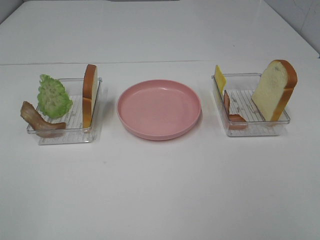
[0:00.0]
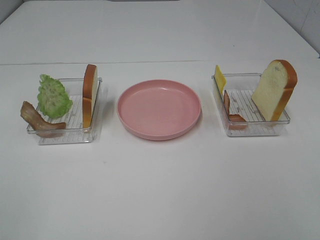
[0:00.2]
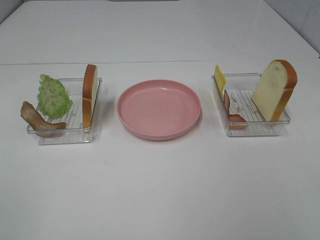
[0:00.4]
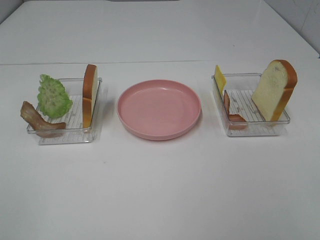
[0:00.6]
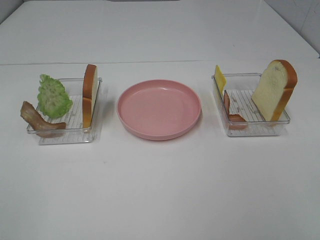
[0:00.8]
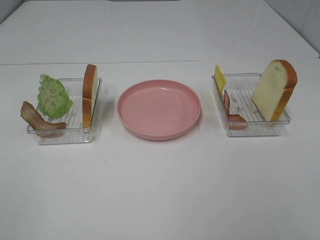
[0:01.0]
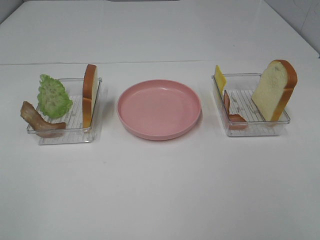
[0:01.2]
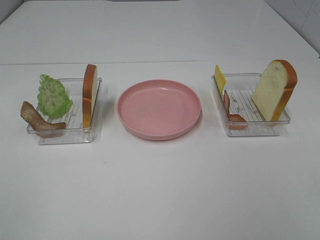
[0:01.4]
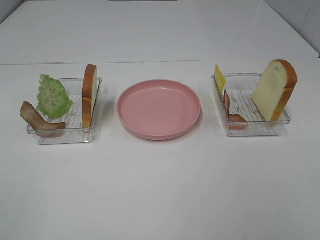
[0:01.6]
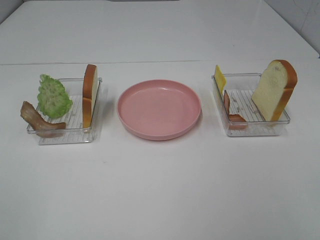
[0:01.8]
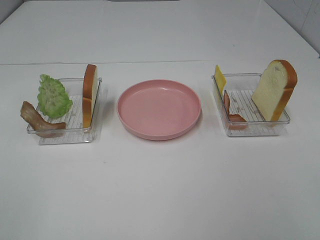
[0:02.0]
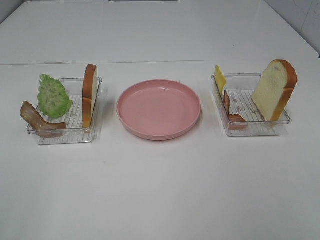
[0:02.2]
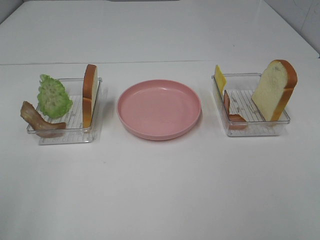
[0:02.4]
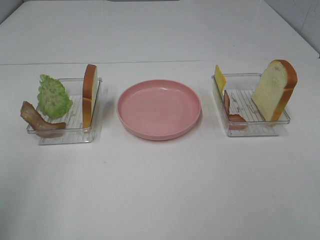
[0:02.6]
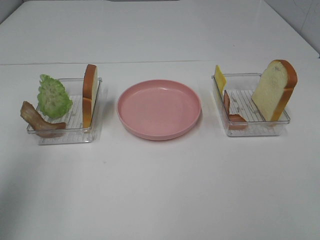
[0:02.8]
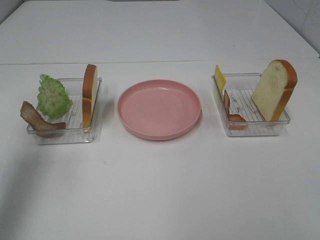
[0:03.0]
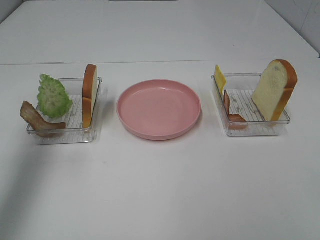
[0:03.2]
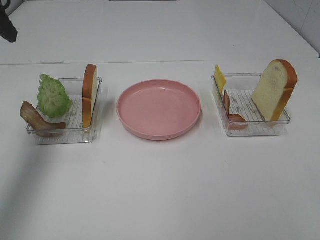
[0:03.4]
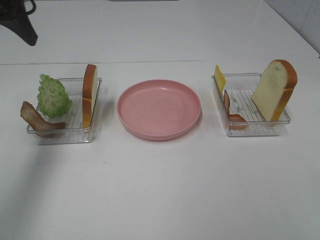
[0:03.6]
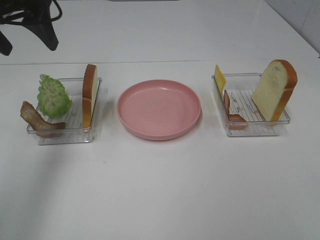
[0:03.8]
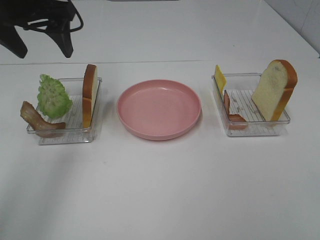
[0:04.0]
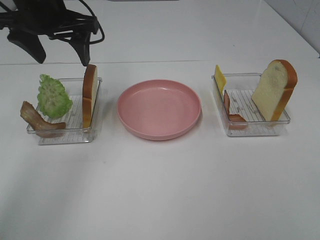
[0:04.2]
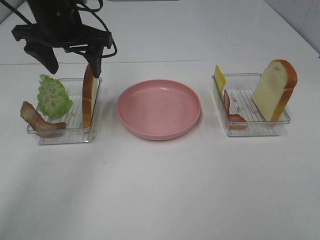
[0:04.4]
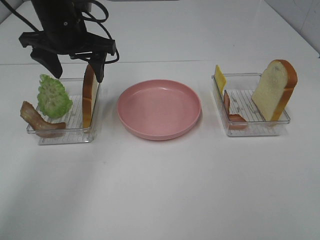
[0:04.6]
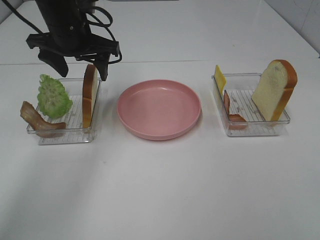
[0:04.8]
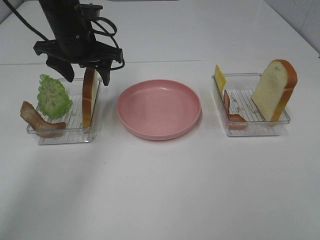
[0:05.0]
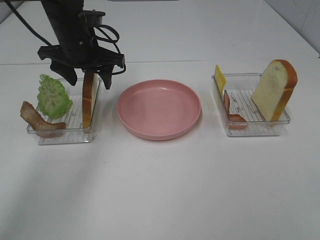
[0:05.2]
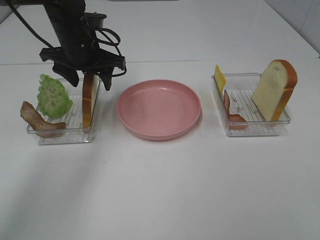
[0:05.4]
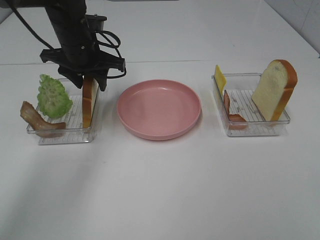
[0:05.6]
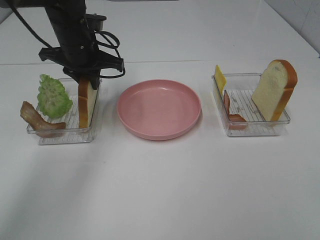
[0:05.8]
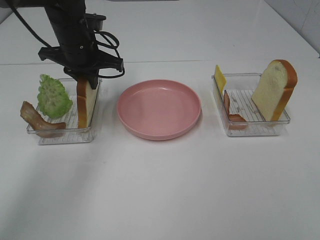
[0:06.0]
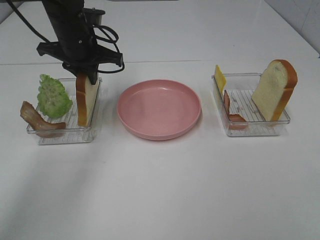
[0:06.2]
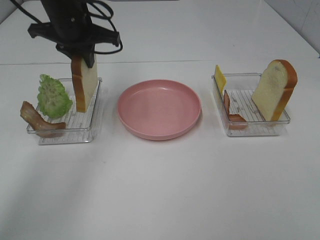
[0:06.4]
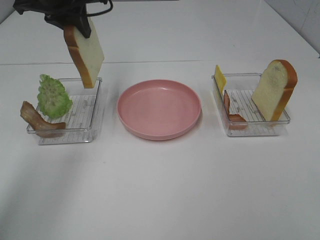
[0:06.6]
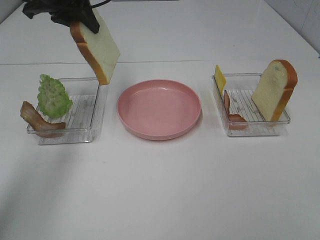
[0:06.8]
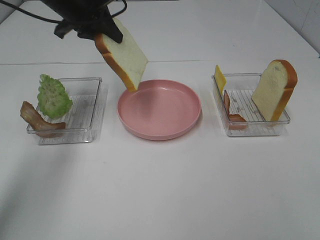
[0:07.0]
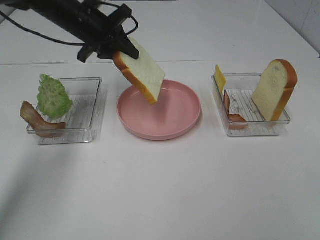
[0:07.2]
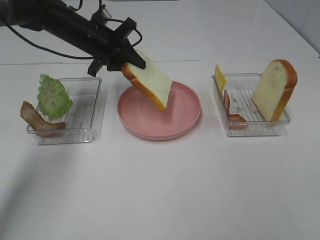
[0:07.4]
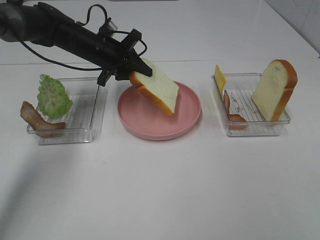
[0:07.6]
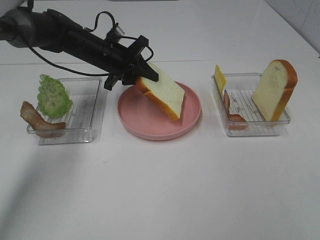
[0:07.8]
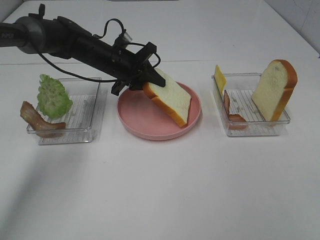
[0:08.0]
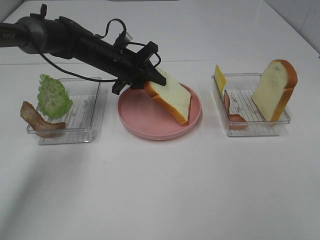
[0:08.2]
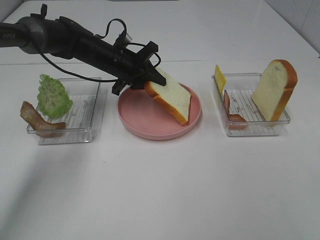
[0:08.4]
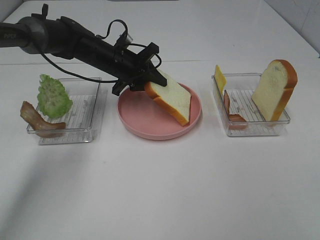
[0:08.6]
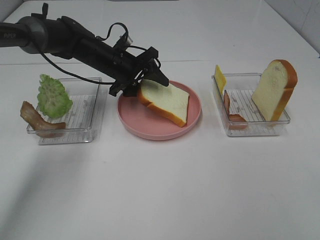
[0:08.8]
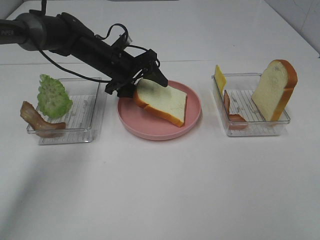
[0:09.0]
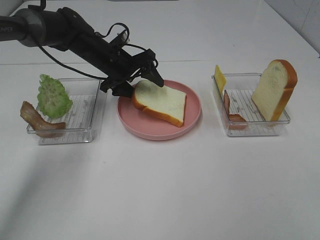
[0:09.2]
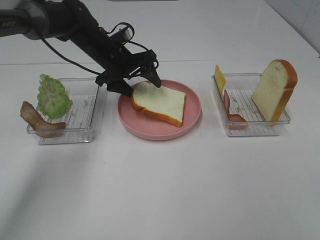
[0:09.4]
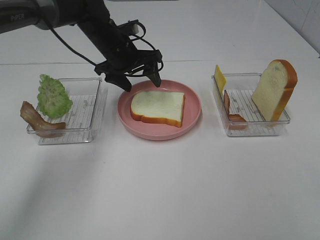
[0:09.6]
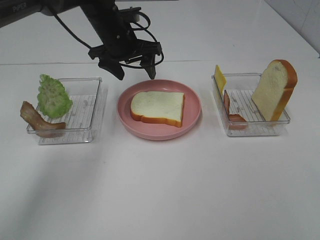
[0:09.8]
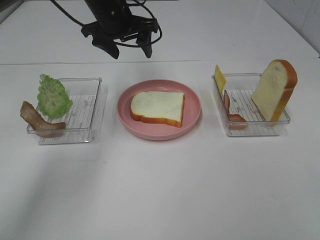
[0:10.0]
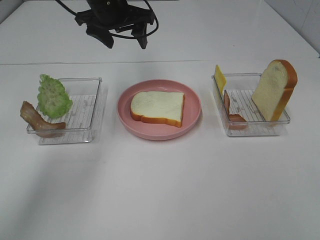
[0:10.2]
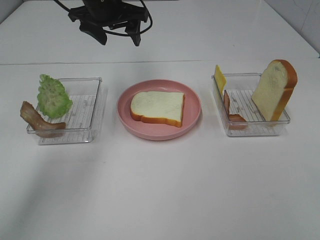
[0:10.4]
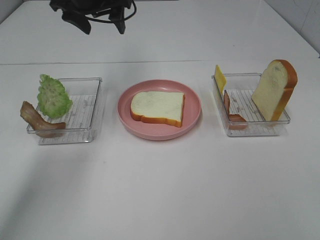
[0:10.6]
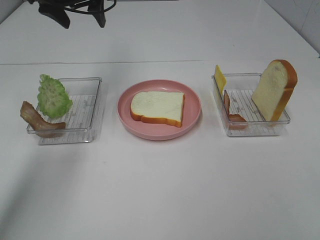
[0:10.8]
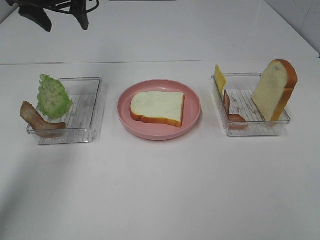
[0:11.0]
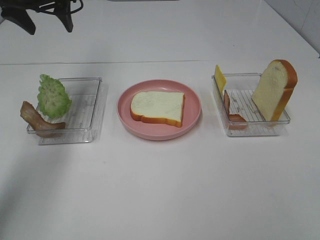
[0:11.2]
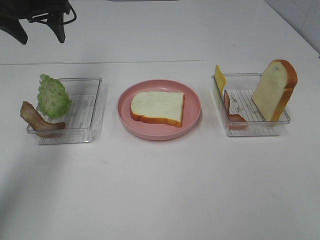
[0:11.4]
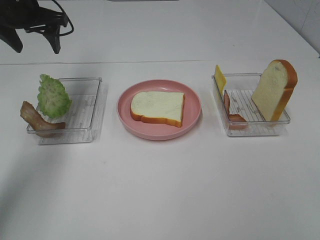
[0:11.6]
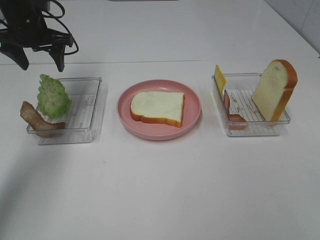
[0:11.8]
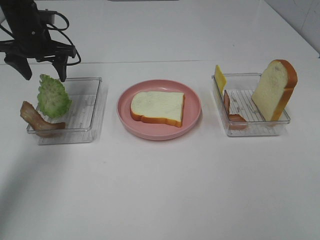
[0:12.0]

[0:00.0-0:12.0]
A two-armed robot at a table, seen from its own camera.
Task of the whole recording: Make sandwiches.
Step, 0:00.0 to 0:05.8: Left hand:grab the bread slice.
Step, 0:06.0 to 0:09.8: Left hand:place the bread slice on the plate.
0:00.0 to 0:01.6: Both grippers stay put.
0:01.6 to 0:03.0: The left gripper travels forward by some 25 cm.
0:03.0 to 0:04.4: The left gripper shifts about 25 cm forward, to the right and downward.
0:04.4 to 0:06.0: The left gripper moves downward, some 5 cm, and closes its fingers.
0:06.0 to 0:07.6: The left gripper moves approximately 10 cm upward and comes back.
0:07.6 to 0:09.0: The left gripper opens.
0:09.0 to 0:10.4: The left gripper is displaced upward by some 15 cm.
0:10.4 to 0:12.0: The left gripper moves to the left and downward, about 15 cm.

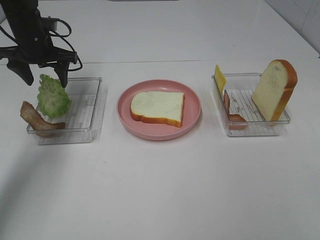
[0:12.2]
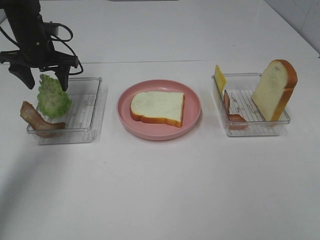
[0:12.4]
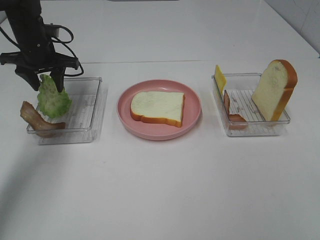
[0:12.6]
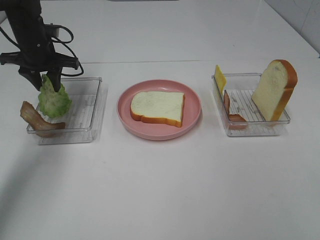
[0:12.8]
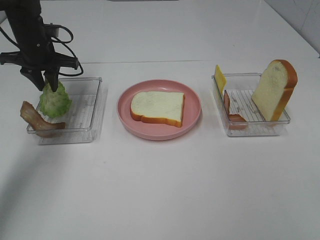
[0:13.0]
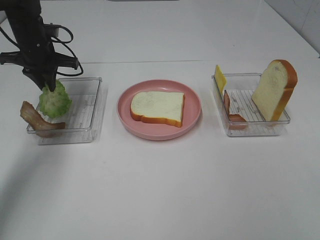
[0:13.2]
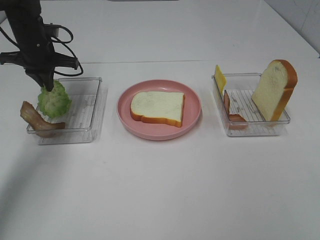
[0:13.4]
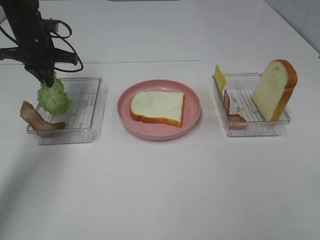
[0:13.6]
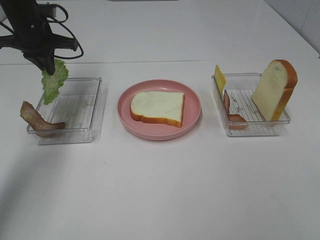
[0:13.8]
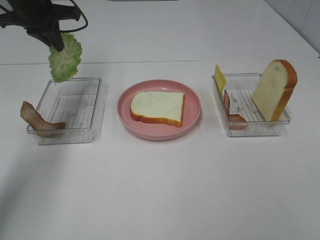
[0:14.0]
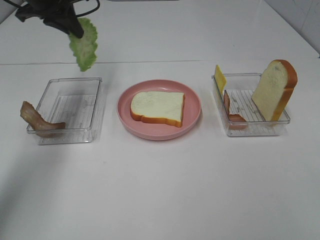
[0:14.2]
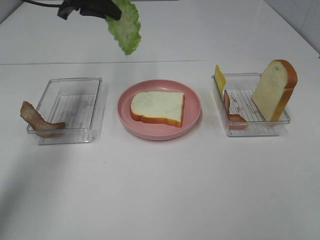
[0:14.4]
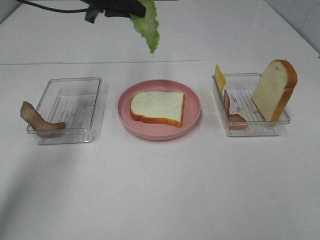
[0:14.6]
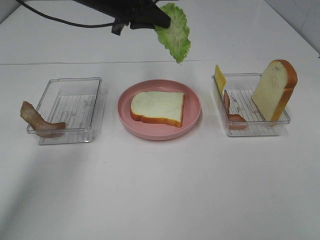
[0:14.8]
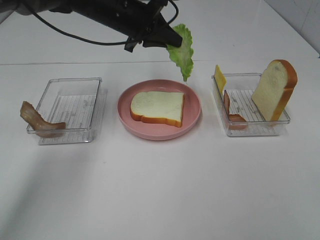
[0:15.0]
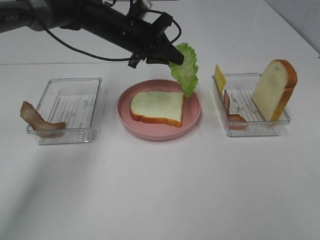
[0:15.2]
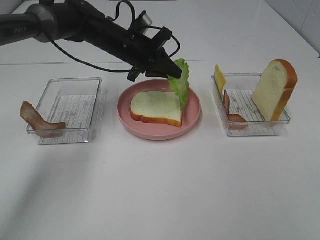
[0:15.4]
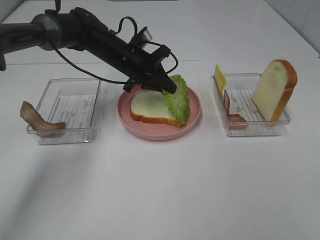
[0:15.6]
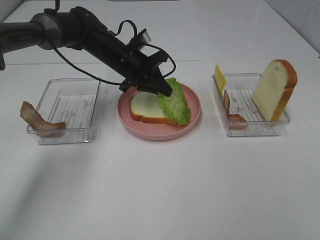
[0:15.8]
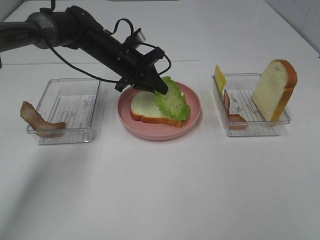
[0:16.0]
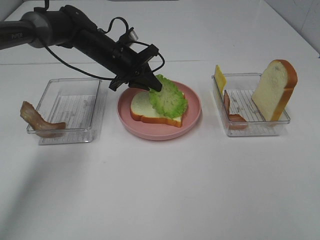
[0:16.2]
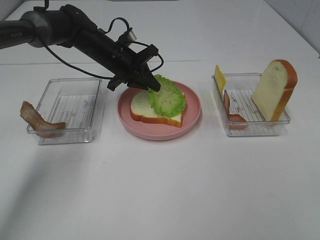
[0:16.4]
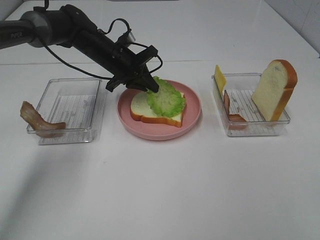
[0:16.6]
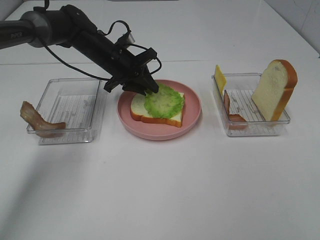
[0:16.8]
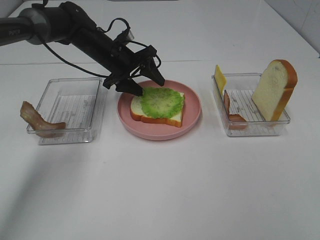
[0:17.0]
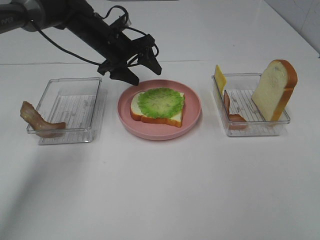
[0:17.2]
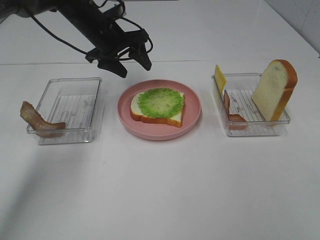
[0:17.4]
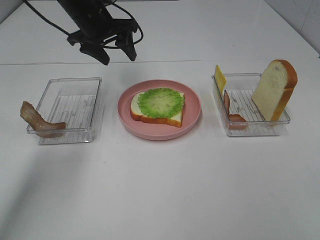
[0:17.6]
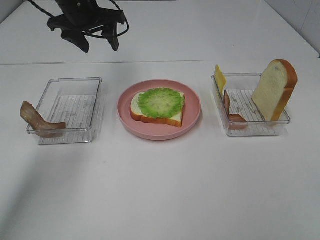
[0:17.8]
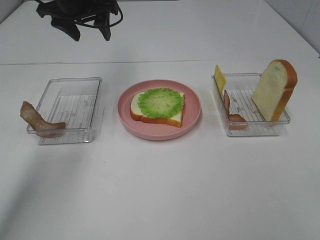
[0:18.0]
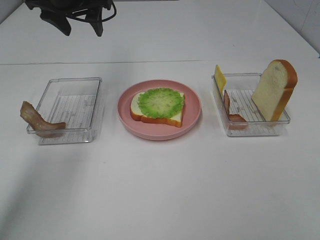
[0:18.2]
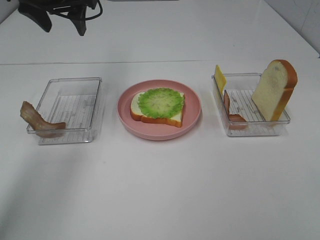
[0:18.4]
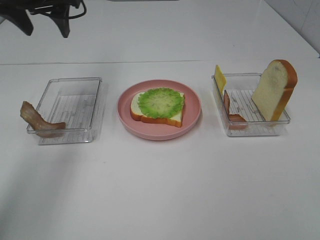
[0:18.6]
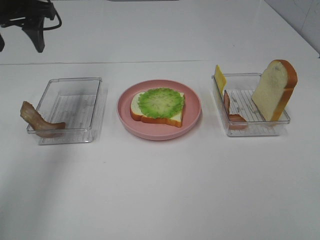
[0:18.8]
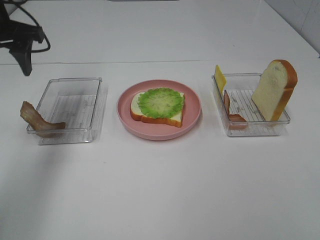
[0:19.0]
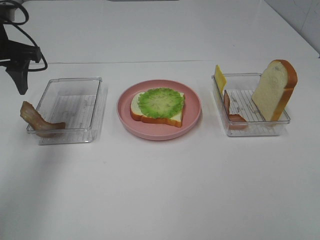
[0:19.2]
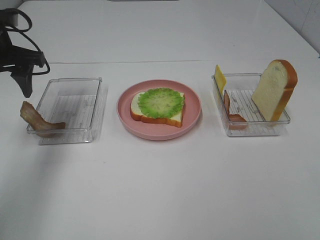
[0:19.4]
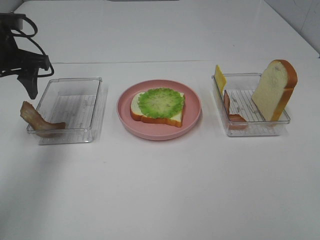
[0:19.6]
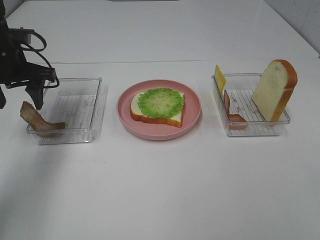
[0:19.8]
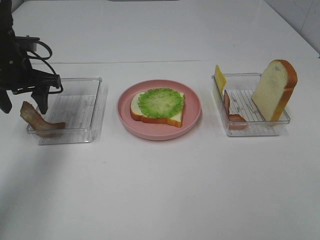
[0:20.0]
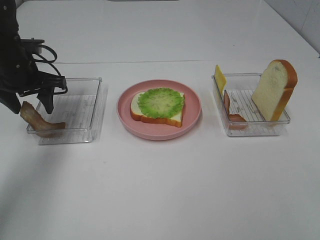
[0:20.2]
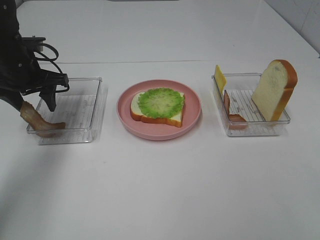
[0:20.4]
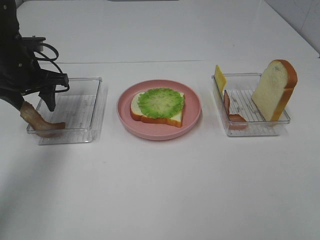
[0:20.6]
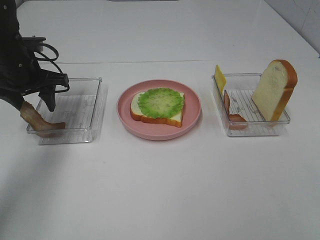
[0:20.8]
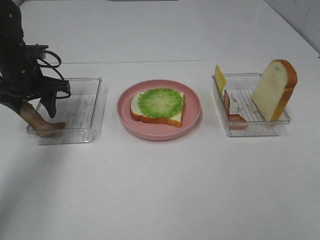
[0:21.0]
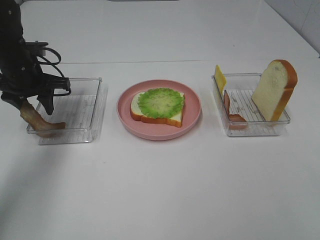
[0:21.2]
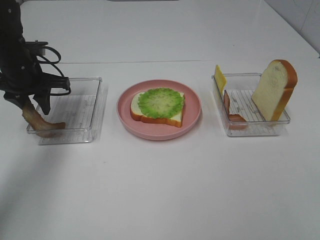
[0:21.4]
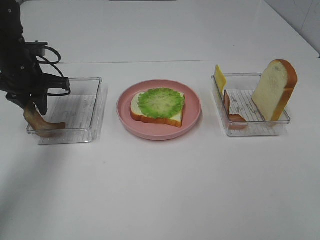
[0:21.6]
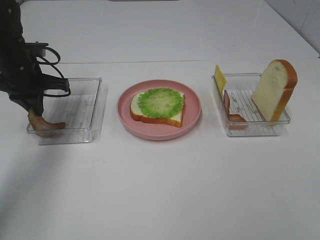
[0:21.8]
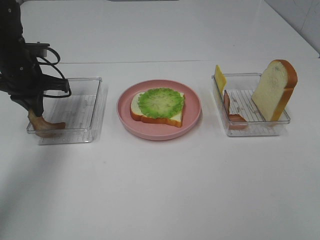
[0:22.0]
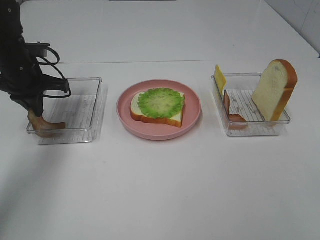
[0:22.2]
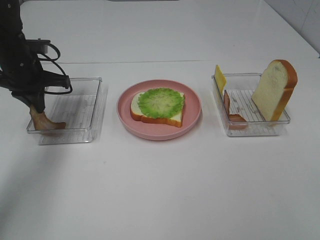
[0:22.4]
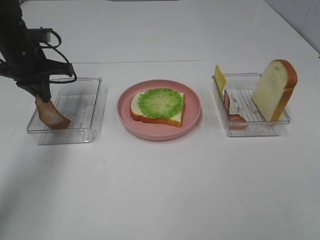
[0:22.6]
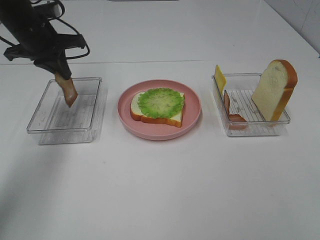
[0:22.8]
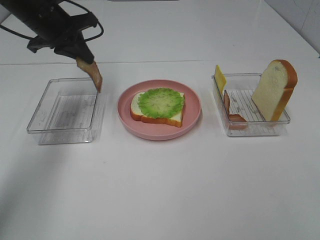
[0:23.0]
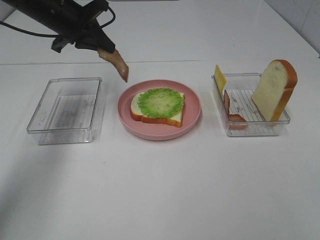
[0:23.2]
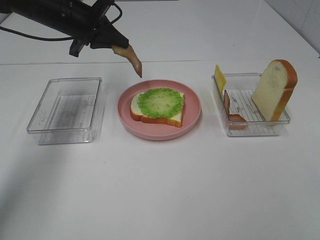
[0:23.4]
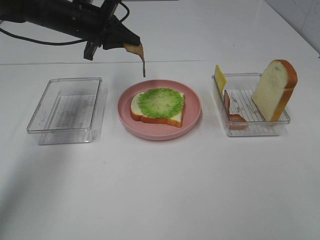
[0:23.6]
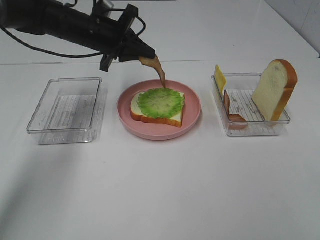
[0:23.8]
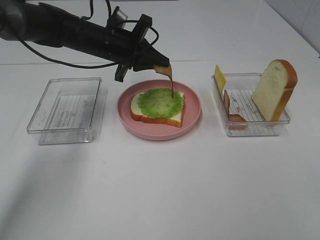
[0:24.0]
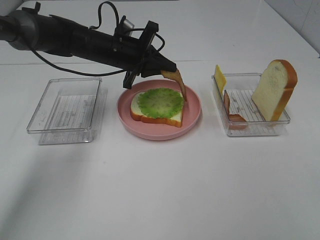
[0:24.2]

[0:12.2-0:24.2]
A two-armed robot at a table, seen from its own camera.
Task of the whole recording: Make sandwiches.
Step, 0:13.6 to 0:17.2: Left hand:place the lettuce slice on the bread slice.
Step, 0:17.4 to 0:22.0: Left hand:grab the bacon.
0:12.2 to 0:13.8: The left gripper closes.
0:13.8 to 0:15.2: The left gripper heads to the right, covering roughly 15 cm.
0:15.2 to 0:16.6: The left gripper moves downward, some 5 cm.
0:16.6 to 0:18.2: The left gripper shifts approximately 20 cm upward and to the left, and opens its fingers.
0:18.2 to 0:19.8: The left gripper moves downward, to the left and backward, about 15 cm.
0:19.8 to 0:21.2: The grippers stay close to where they were, moving slightly.
0:21.2 to 0:22.6: The left gripper closes its fingers.
0:22.6 to 0:24.2: The left gripper travels to the right by approximately 15 cm.
